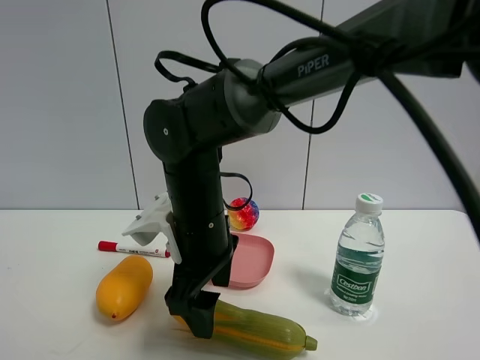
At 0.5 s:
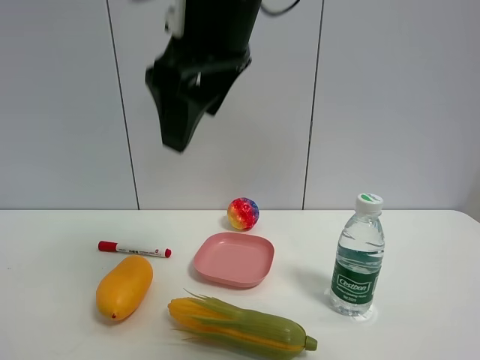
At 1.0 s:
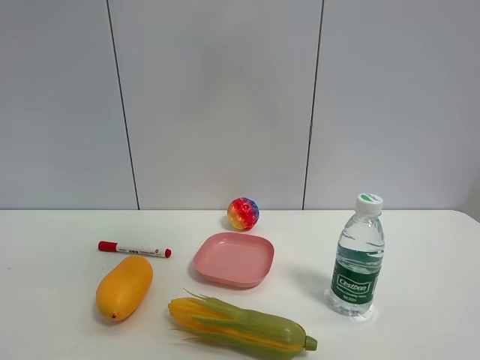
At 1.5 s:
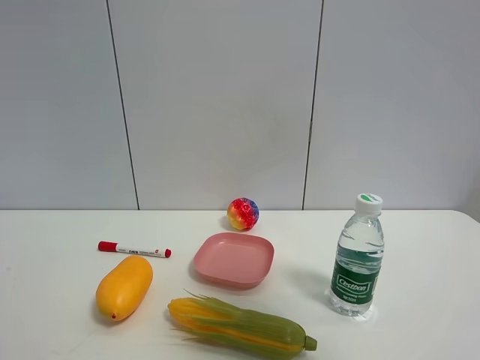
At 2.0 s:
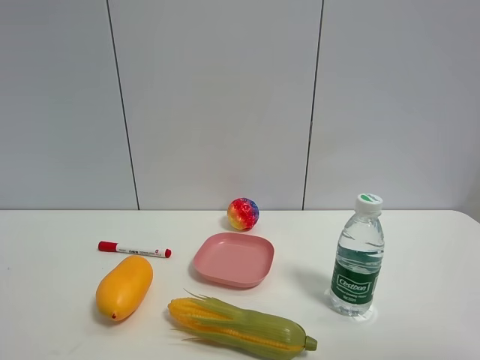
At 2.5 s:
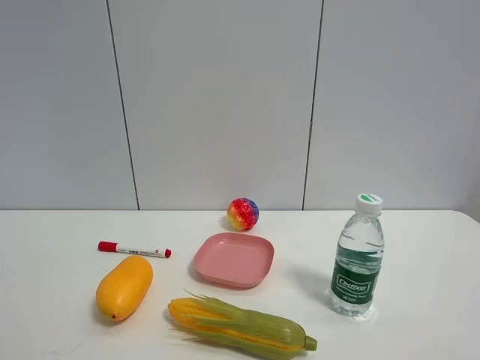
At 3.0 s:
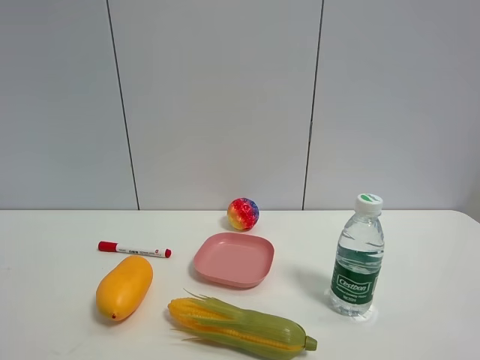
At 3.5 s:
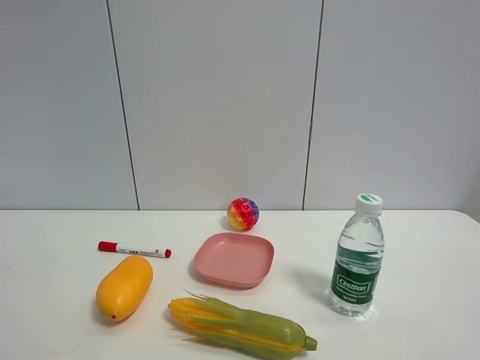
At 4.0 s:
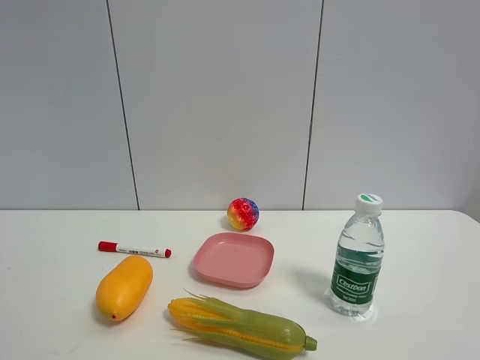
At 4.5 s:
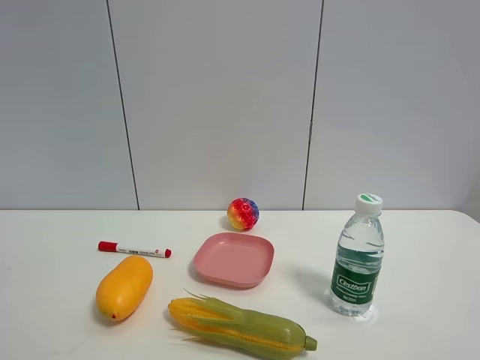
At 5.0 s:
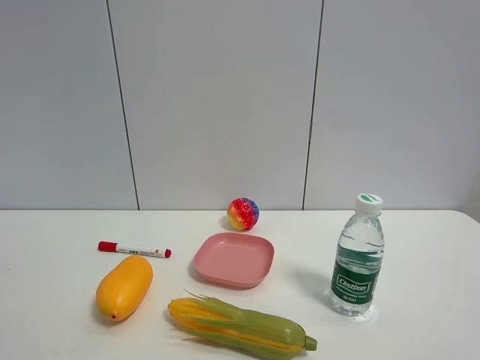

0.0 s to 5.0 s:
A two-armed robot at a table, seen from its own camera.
Task of the whole recording: the gripper move the object.
0.0 to 2.5 s: The right gripper is displaced to the right and backward by roughly 50 cm.

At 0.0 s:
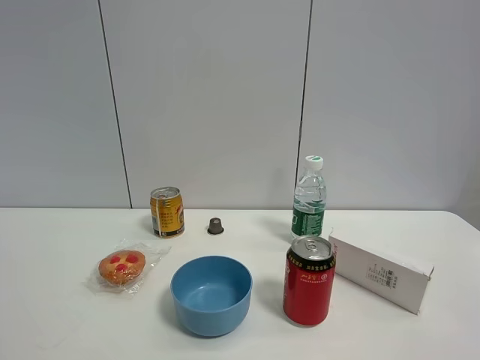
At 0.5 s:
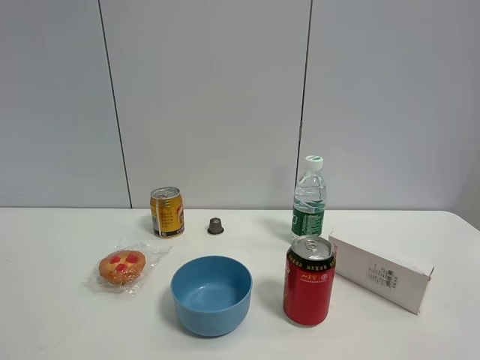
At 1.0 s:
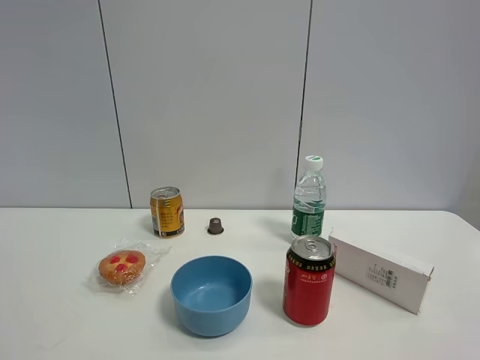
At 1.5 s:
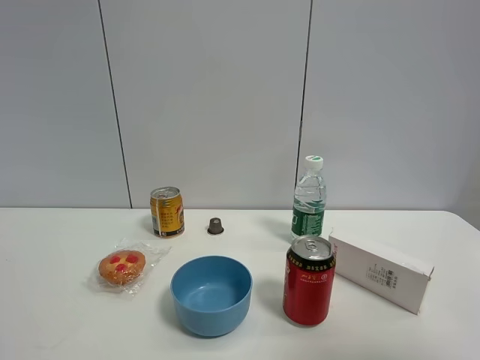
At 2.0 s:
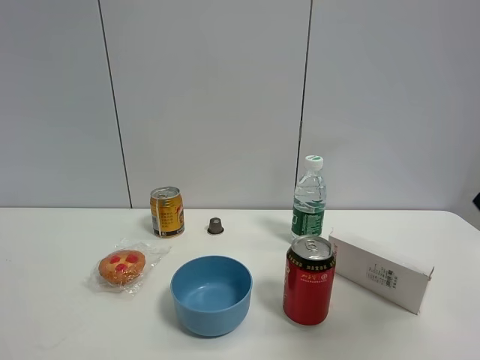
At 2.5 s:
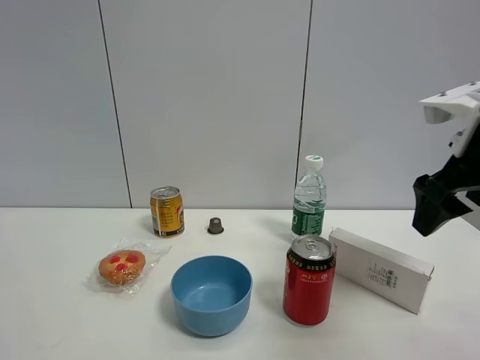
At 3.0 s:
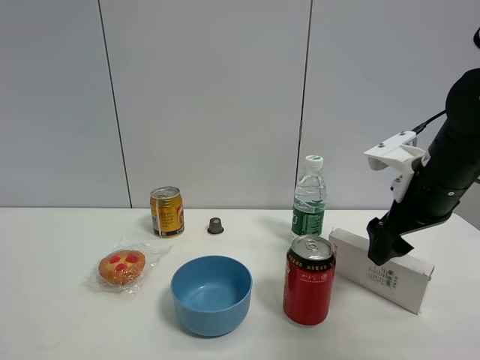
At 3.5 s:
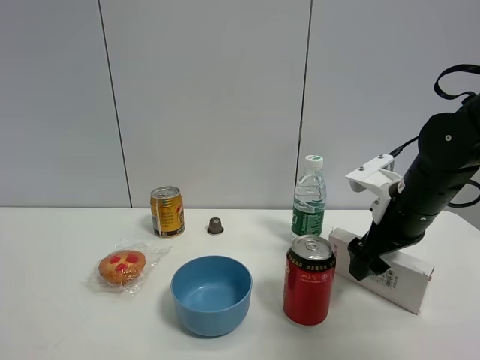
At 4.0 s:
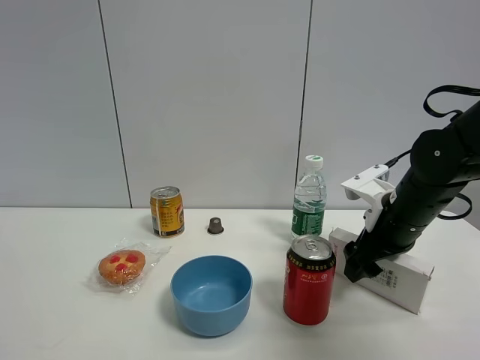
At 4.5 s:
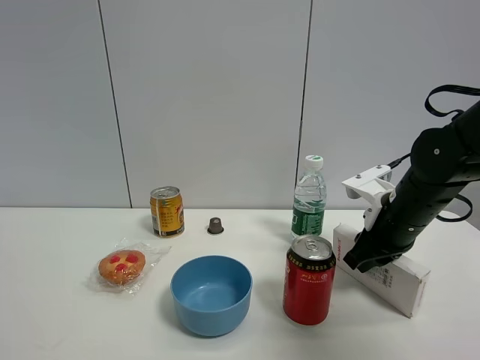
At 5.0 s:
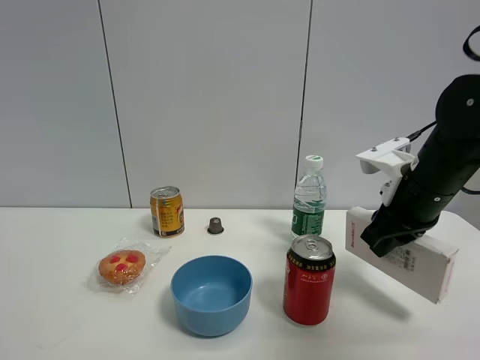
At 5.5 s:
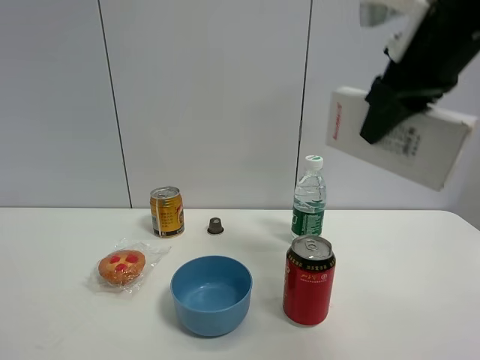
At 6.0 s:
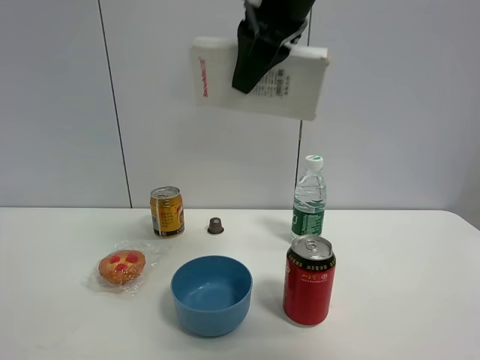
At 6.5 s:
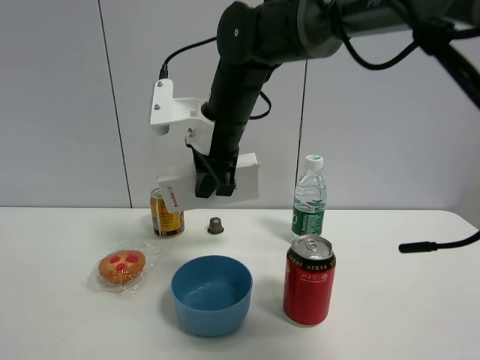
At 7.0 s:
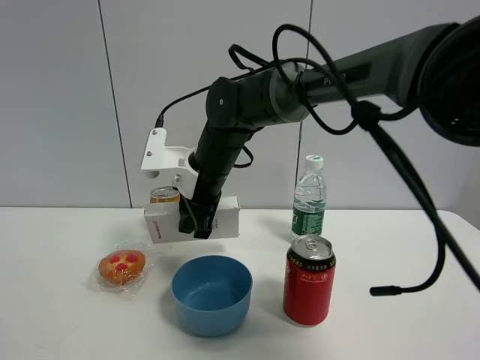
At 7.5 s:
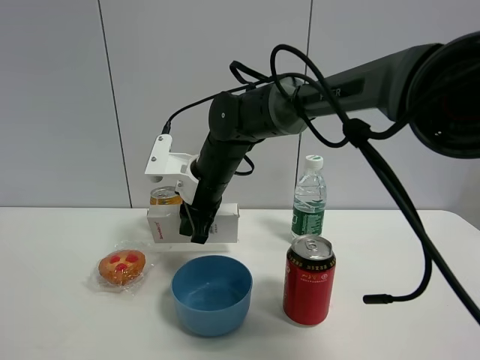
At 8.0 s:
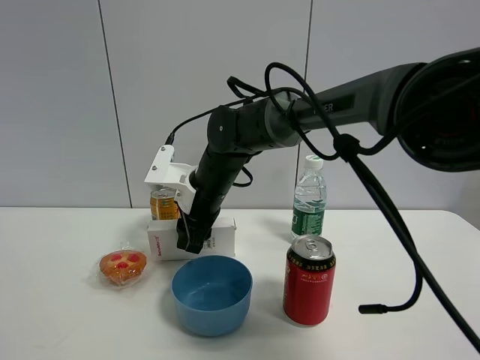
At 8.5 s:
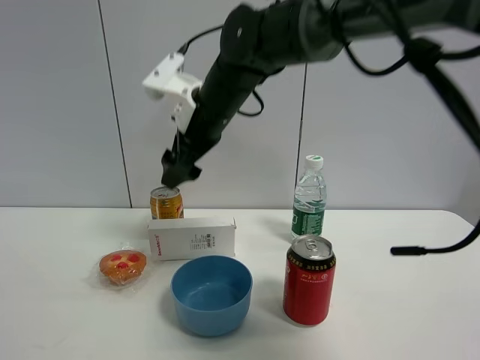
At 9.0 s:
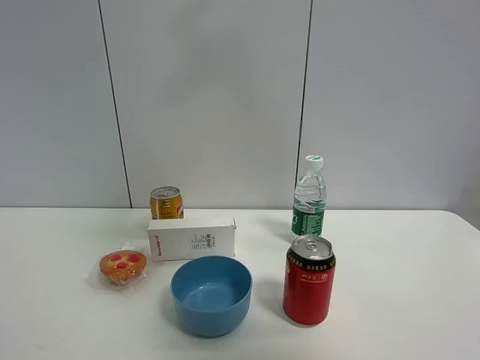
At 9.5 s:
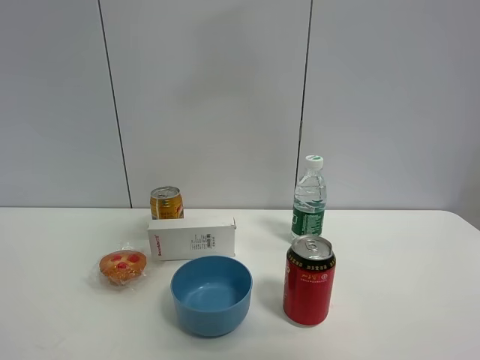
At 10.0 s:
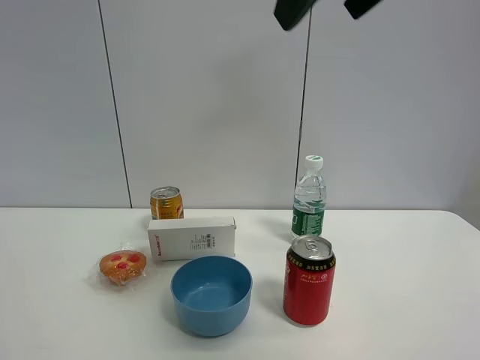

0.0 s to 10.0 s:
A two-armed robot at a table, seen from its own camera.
Task of the whole recording: the gripper move the object.
Step, 0.0 to 4.5 s: Grasp the USB box with the right gripper.
Step, 5.0 to 7.5 s: Place the USB box on the table with the right gripper.
0.0 to 2.0 s: The right gripper travels forward by roughly 20 cm.
2.0 to 4.0 s: The right gripper is displaced forward and downward by approximately 25 cm.
4.0 to 6.0 s: The right gripper heads upward and to the left, covering about 30 cm, and closes up.
6.0 to 8.0 s: The right gripper moves downward and forward, about 25 cm.
8.0 to 10.0 s: The right gripper moves upward, backward and to the right, some 40 cm, and opens up.

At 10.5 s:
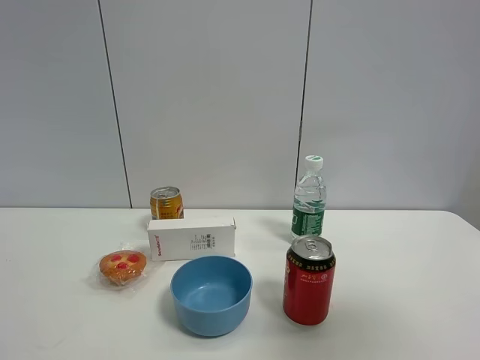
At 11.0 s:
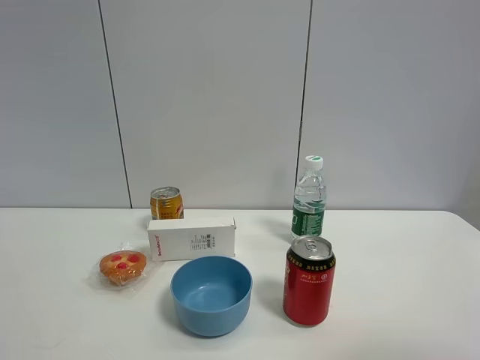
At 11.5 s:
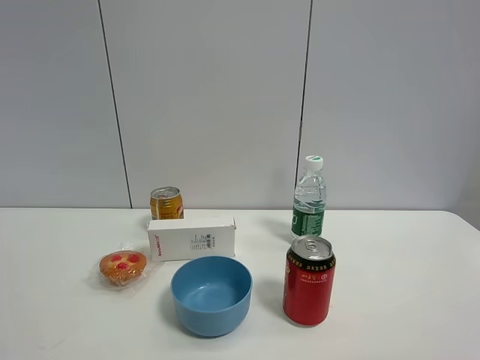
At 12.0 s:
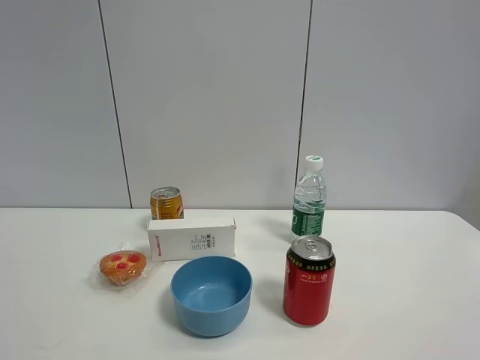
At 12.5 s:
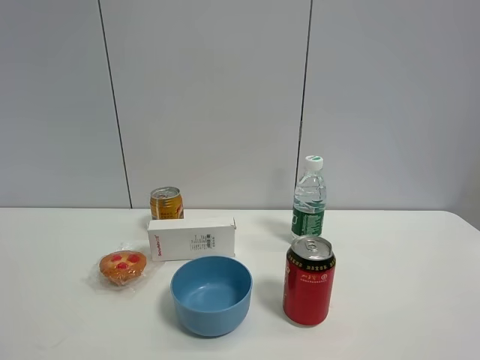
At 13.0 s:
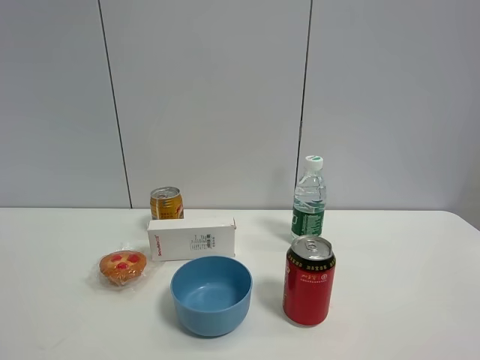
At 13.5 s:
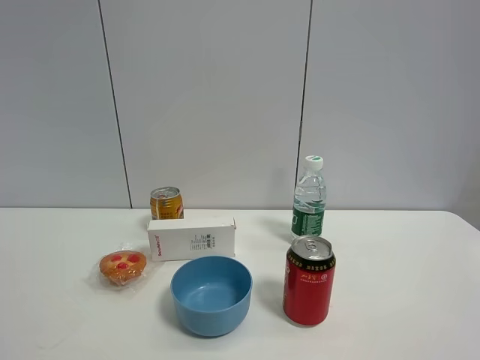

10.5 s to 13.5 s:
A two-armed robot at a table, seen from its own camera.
Task of the whole recording: the gripper move the object.
10.5 to 12.0 s: The right gripper goes approximately 15 cm backward and downward.
